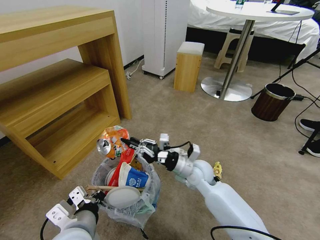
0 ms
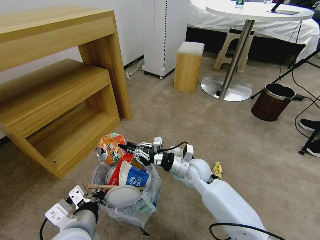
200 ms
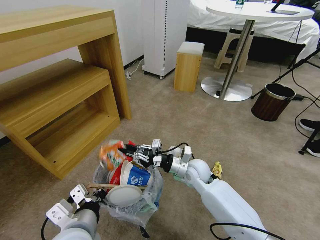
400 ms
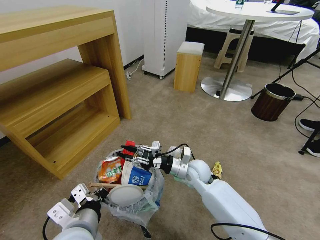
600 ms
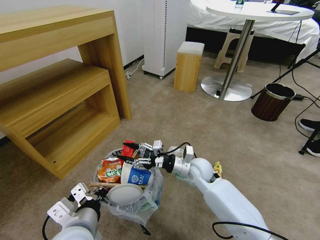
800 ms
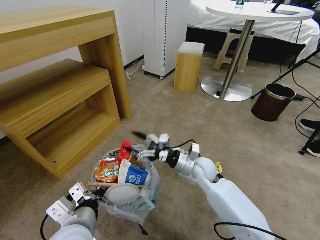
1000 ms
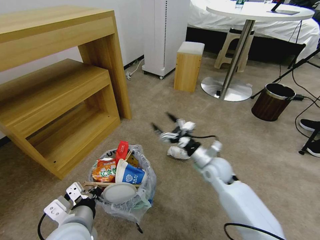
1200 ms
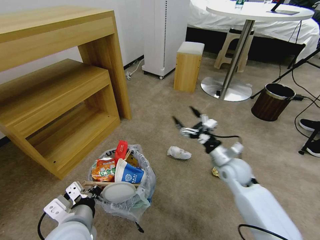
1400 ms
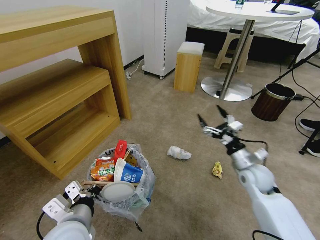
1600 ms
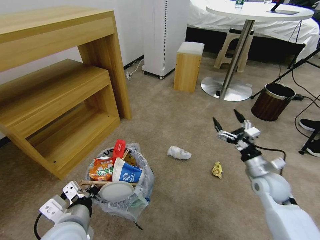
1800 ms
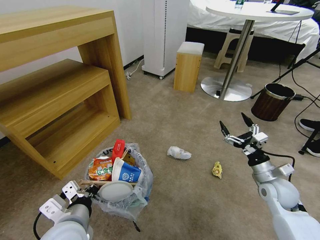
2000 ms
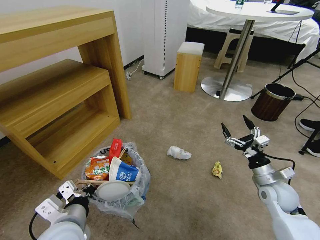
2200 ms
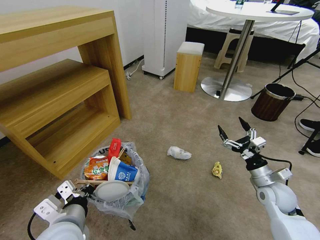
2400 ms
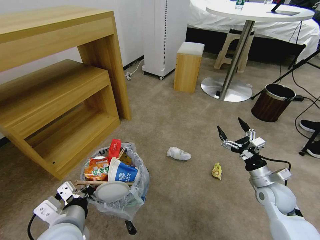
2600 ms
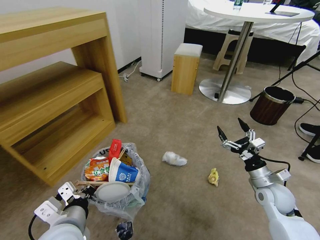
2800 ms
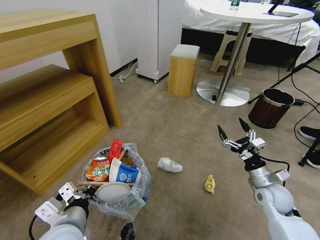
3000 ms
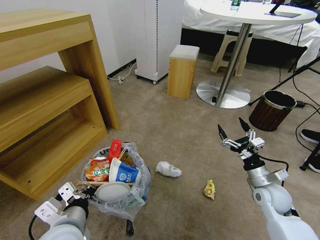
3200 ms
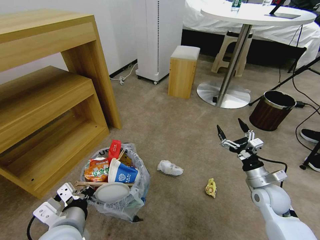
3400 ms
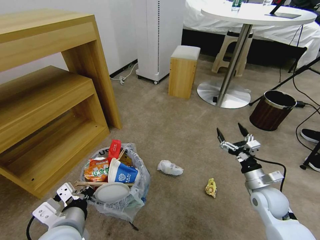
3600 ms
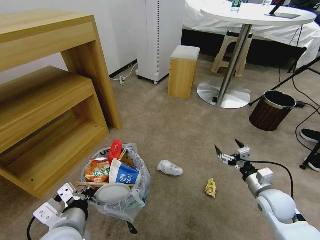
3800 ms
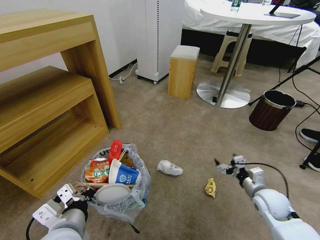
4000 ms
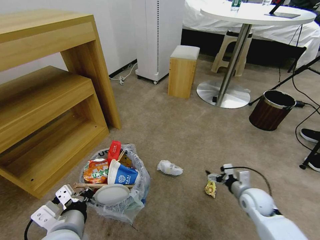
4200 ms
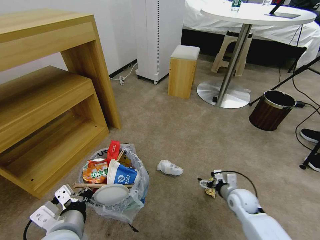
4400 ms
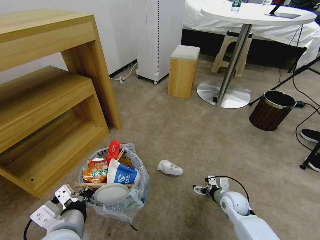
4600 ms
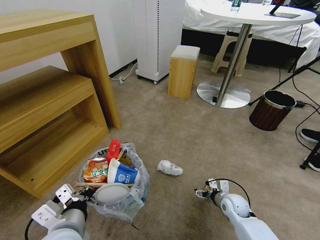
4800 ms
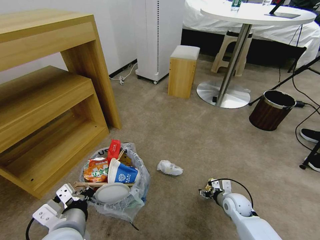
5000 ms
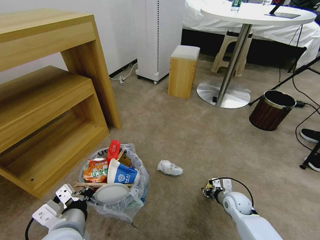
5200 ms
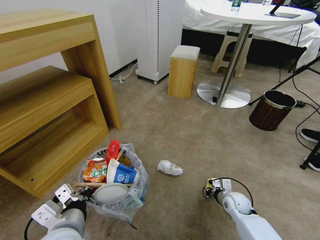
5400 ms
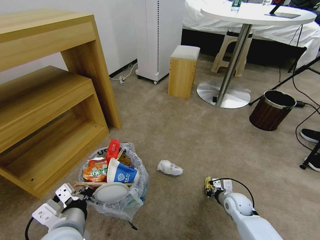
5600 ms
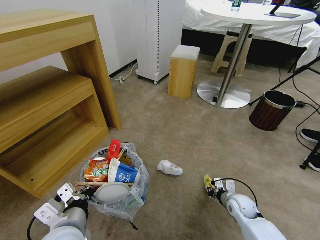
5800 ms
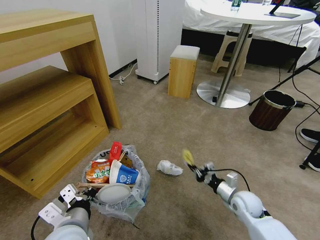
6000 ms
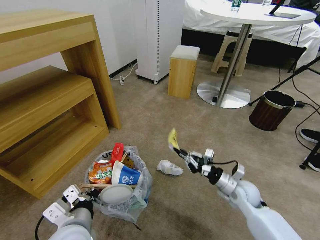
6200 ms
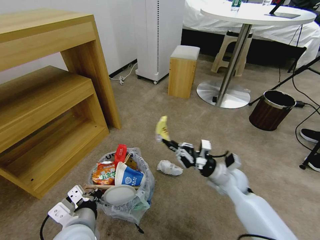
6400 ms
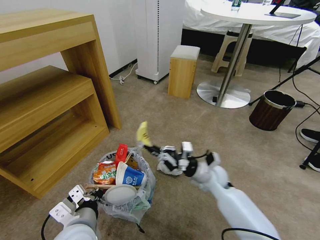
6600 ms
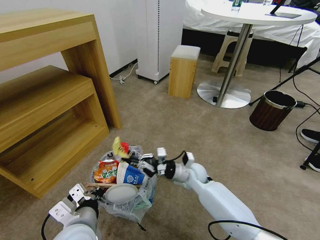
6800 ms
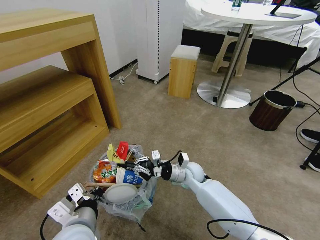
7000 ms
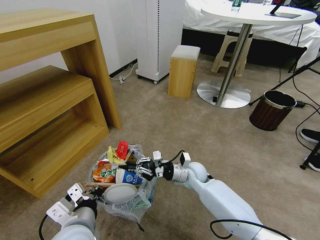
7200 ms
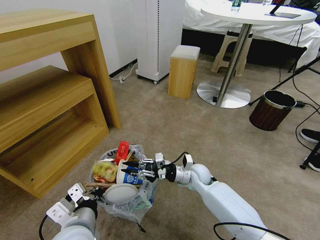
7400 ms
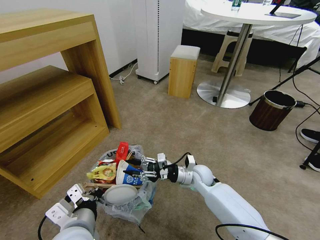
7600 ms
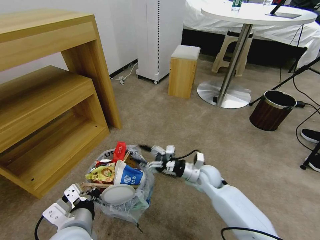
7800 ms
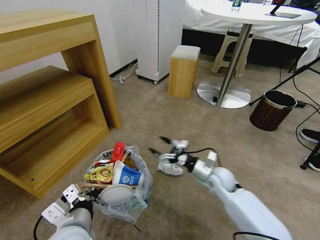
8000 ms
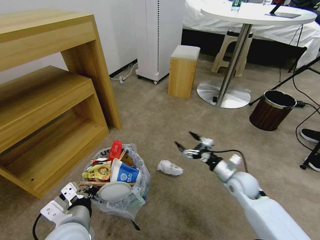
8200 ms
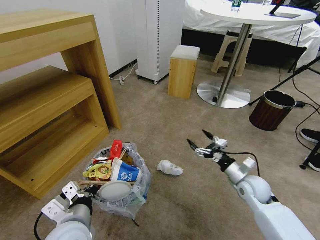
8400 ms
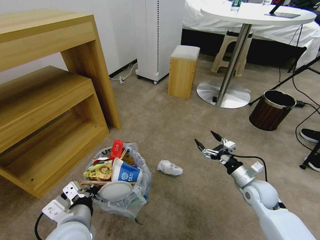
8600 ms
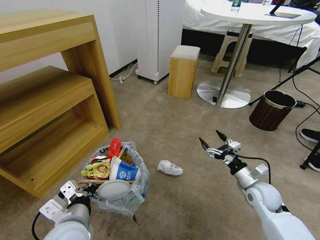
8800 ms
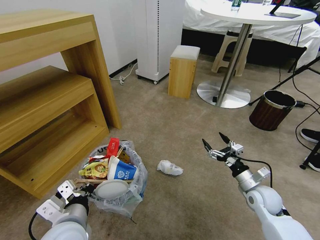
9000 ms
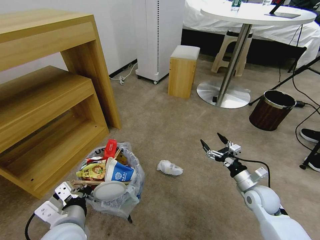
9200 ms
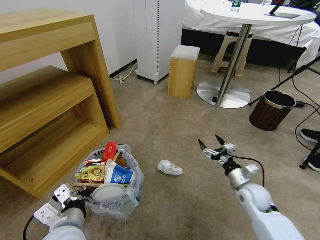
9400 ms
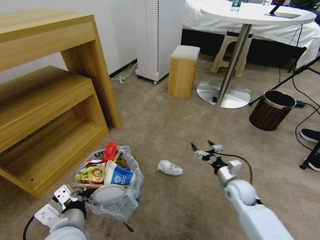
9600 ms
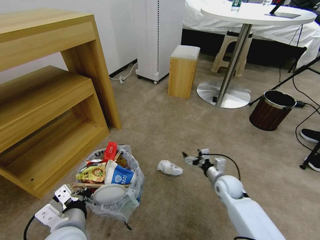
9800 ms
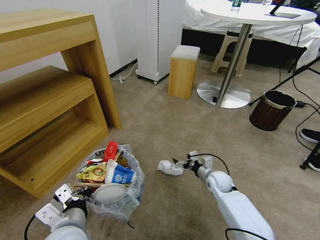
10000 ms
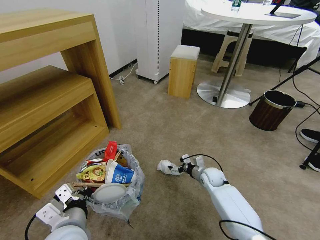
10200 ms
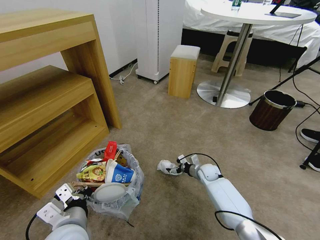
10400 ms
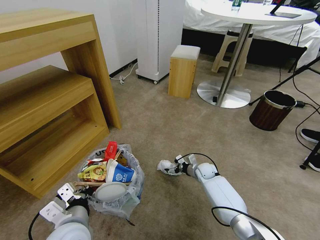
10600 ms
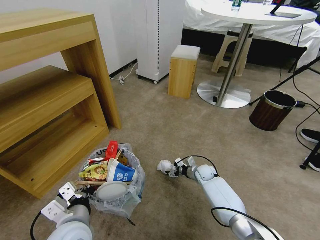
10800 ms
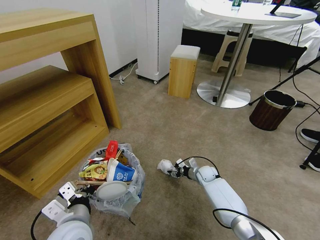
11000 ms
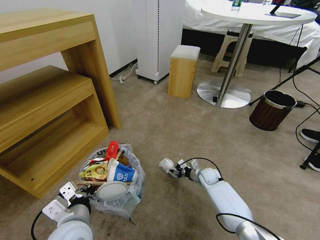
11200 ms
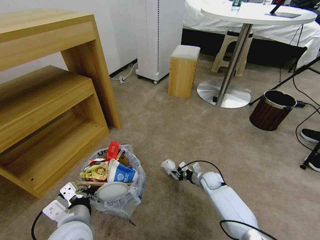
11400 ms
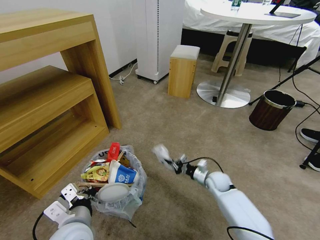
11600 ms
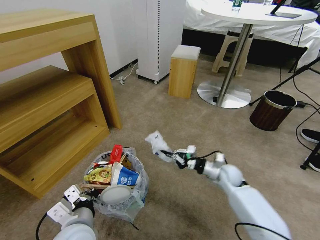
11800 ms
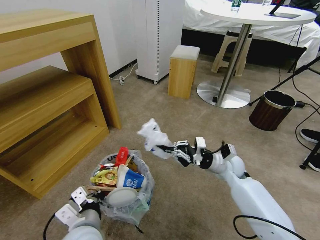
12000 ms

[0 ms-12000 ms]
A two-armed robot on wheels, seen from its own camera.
Task of the whole recording: Pick up the trash bin and place the garbage on the floor into it.
0 ms to 1600 ms: The right gripper moves to the right, some 20 cm, and opens.
1600 ms to 3000 ms: The right gripper moves backward, approximately 5 cm.
3000 ms to 4400 ms: The right gripper shifts some 10 cm downward and to the left.
4400 ms to 6000 ms: The right gripper closes its fingers.
6000 ms to 7600 ms: The right gripper is displaced to the left, forward and upward by about 20 cm, and opens up.
7600 ms to 9000 ms: The right gripper shifts some 20 cm to the right and backward, and opens up.
9000 ms to 10400 ms: The right gripper goes about 25 cm forward, to the left and downward.
10400 ms to 12000 ms: The right gripper is displaced upward by about 15 cm, and closes up.

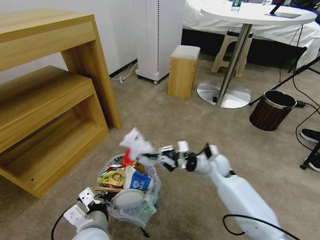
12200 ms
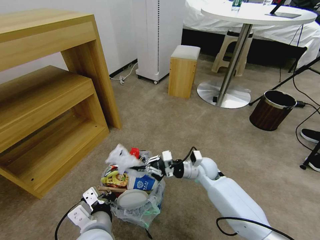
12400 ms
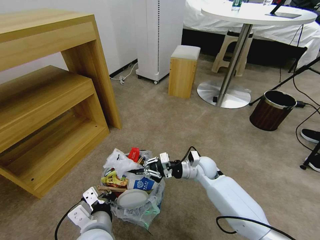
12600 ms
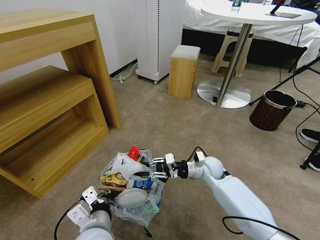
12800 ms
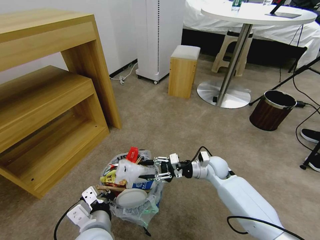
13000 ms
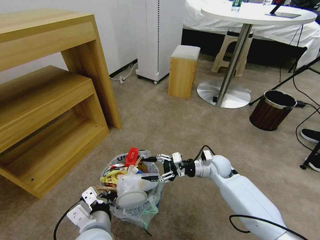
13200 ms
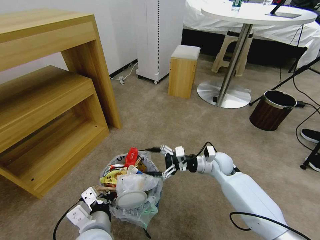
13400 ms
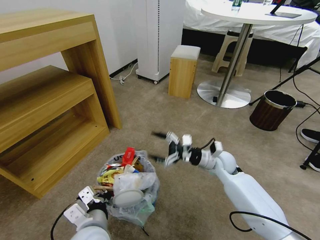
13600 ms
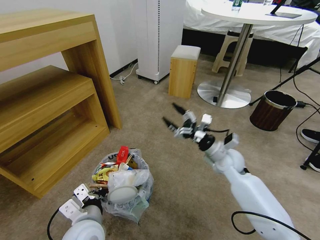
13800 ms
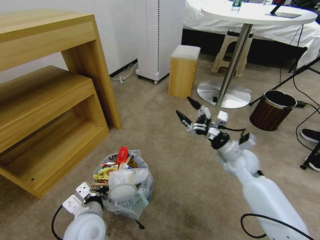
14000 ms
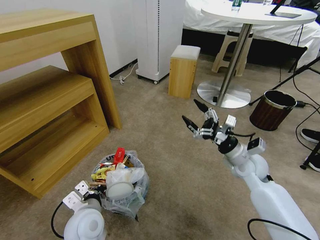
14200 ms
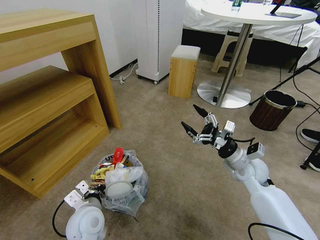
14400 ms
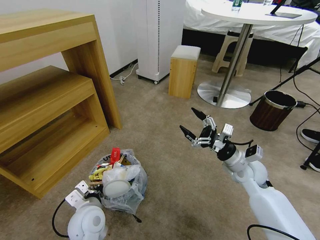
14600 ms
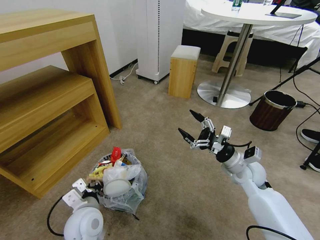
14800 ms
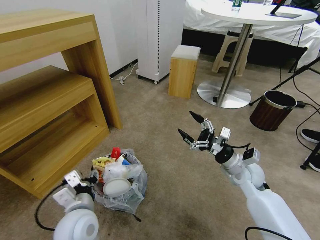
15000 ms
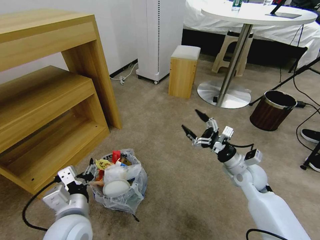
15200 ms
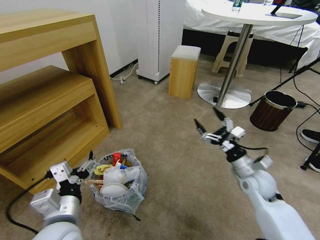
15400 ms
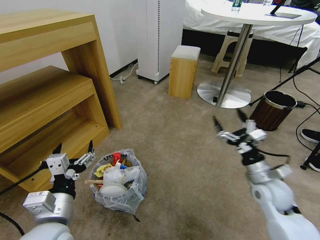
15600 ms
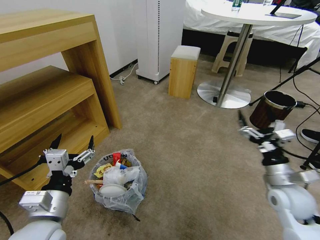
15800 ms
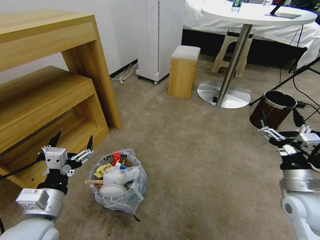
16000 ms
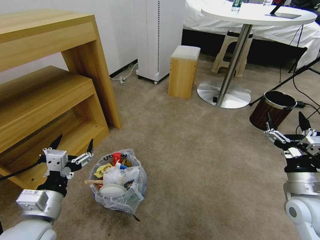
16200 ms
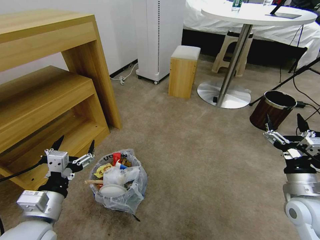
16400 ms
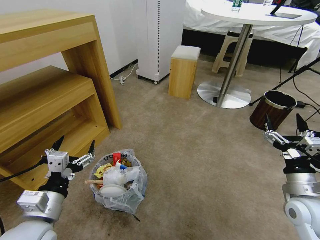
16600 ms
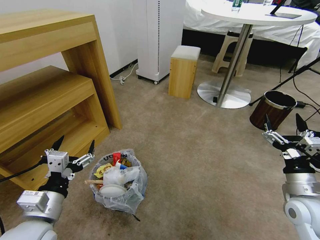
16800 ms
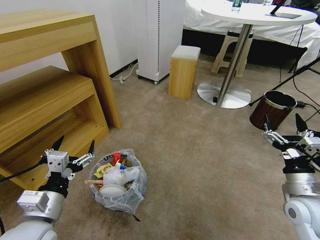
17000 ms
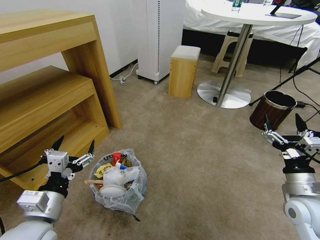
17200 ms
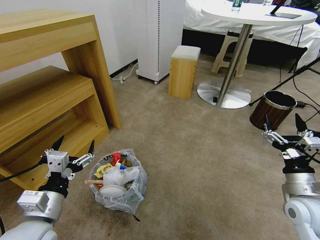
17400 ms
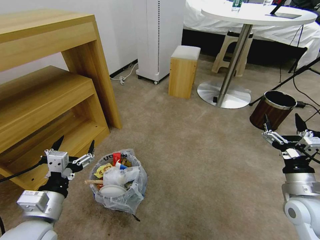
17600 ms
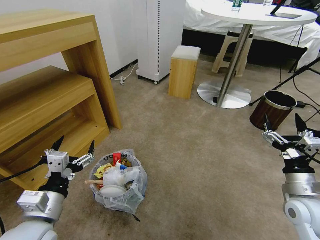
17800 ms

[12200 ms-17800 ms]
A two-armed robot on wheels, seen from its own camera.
Task of the whole recording: Pick up the trash bin and place the garbage on the floor into it.
12200 ms to 13600 ms: The right gripper opens its fingers.
13600 ms to 15000 ms: The right gripper travels to the right and backward by about 10 cm, while the left gripper opens up.
15000 ms to 16400 ms: The right gripper is displaced backward and to the right by about 15 cm. Meanwhile the left gripper goes approximately 10 cm to the left and upward, and opens up.
16400 ms to 17800 ms: Both grippers stay put.
